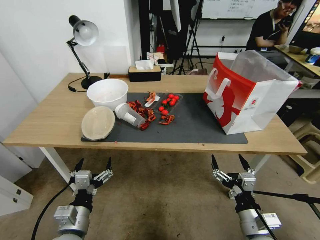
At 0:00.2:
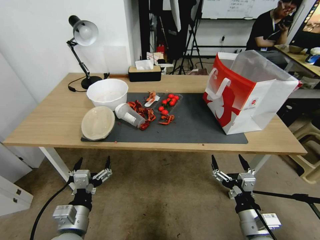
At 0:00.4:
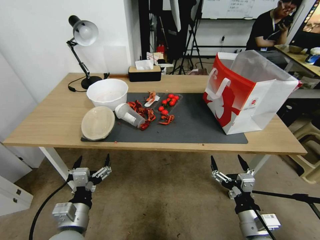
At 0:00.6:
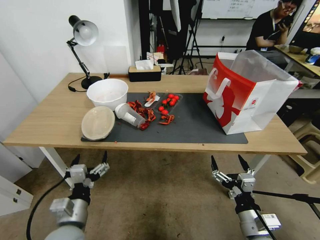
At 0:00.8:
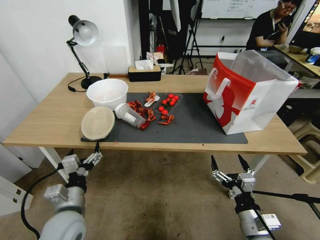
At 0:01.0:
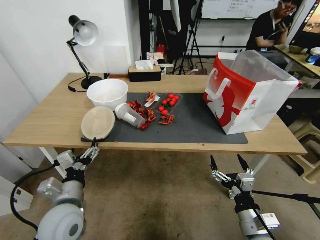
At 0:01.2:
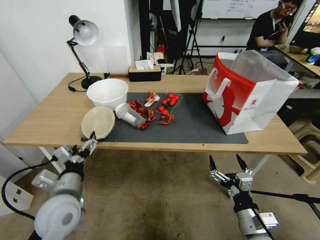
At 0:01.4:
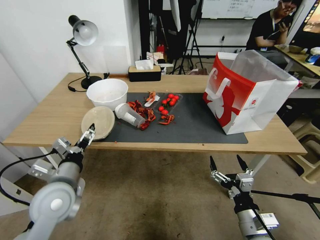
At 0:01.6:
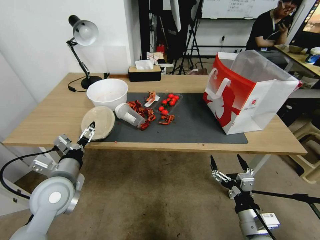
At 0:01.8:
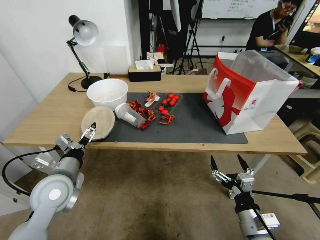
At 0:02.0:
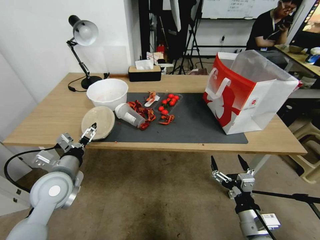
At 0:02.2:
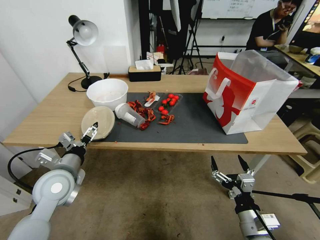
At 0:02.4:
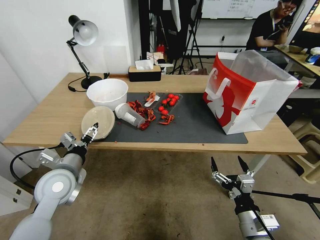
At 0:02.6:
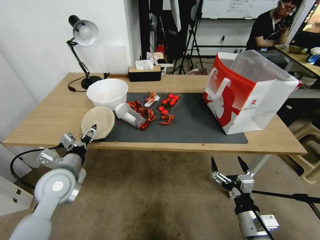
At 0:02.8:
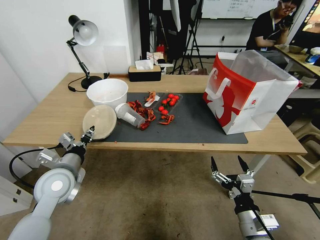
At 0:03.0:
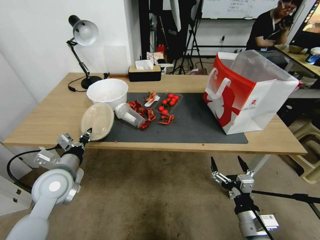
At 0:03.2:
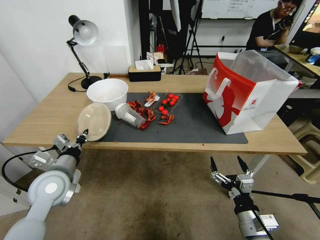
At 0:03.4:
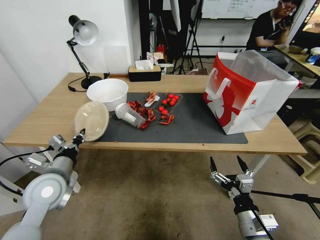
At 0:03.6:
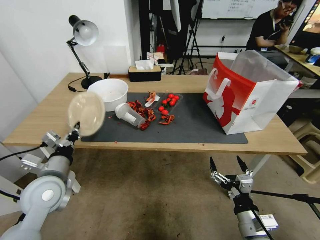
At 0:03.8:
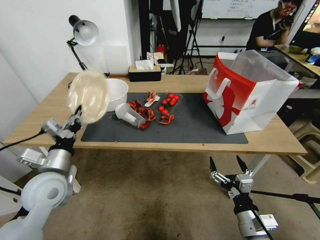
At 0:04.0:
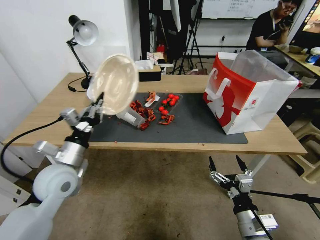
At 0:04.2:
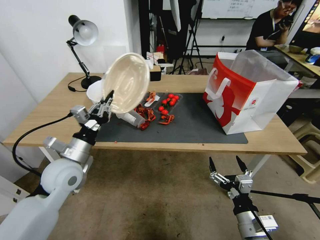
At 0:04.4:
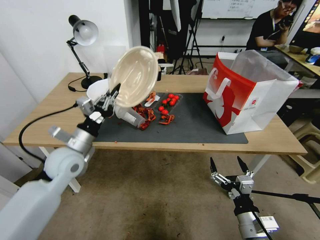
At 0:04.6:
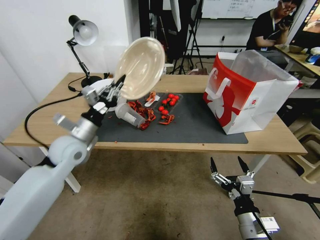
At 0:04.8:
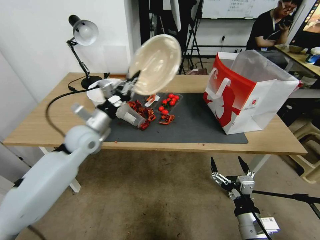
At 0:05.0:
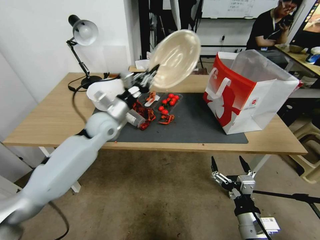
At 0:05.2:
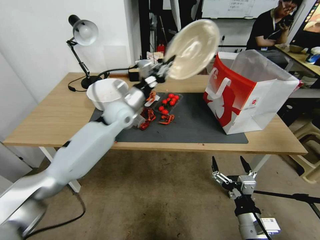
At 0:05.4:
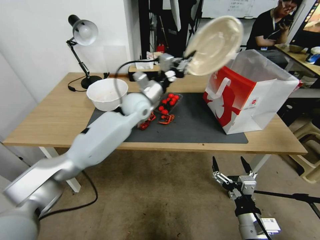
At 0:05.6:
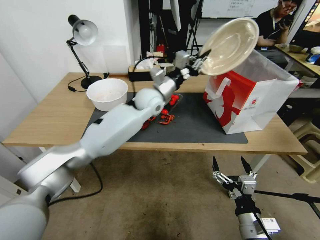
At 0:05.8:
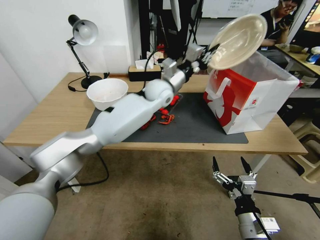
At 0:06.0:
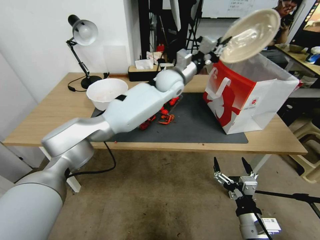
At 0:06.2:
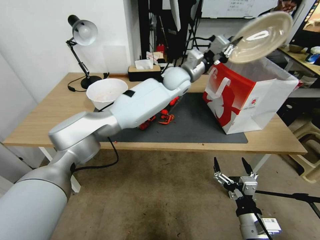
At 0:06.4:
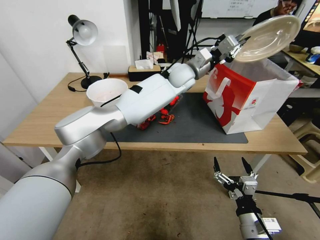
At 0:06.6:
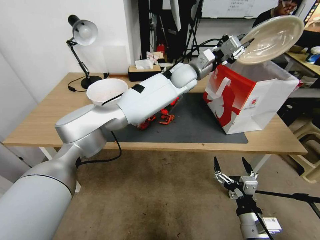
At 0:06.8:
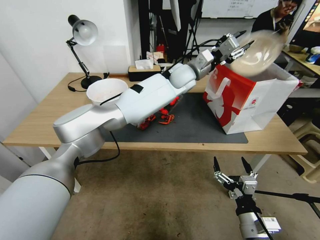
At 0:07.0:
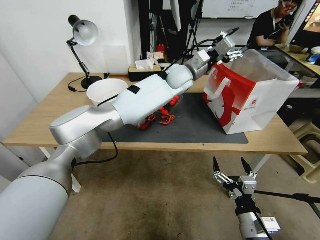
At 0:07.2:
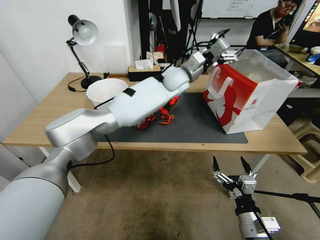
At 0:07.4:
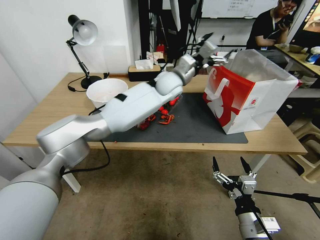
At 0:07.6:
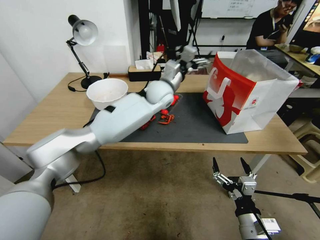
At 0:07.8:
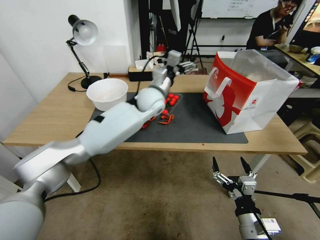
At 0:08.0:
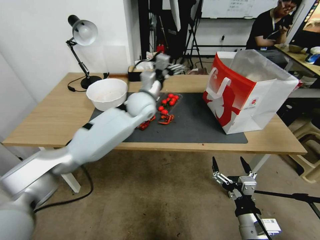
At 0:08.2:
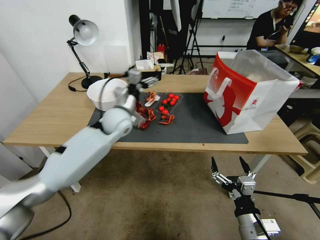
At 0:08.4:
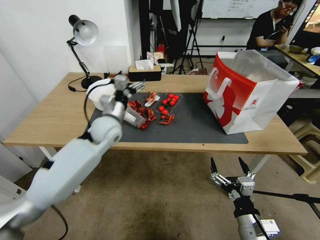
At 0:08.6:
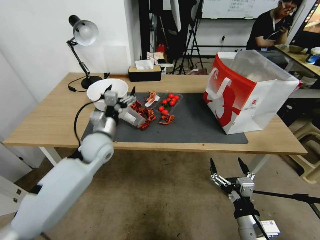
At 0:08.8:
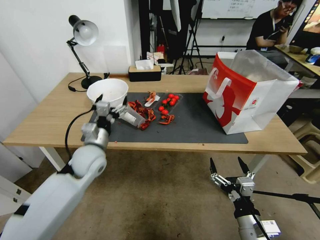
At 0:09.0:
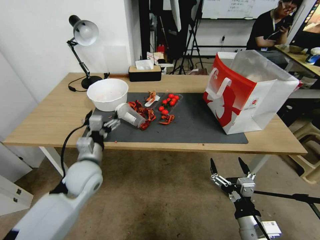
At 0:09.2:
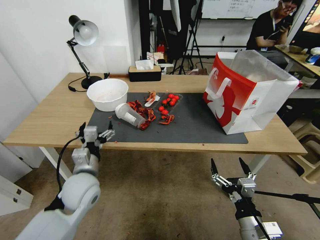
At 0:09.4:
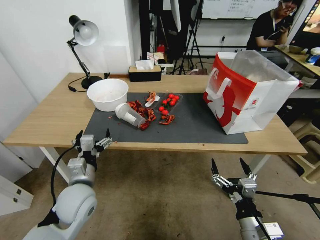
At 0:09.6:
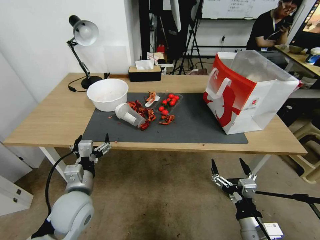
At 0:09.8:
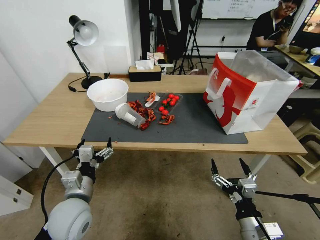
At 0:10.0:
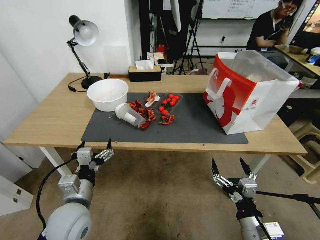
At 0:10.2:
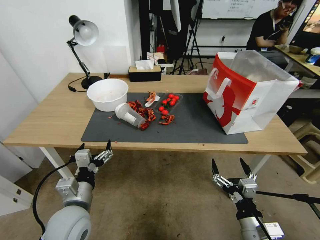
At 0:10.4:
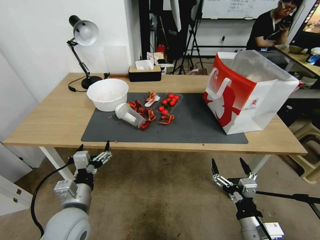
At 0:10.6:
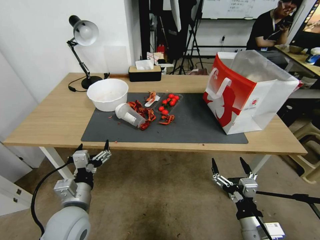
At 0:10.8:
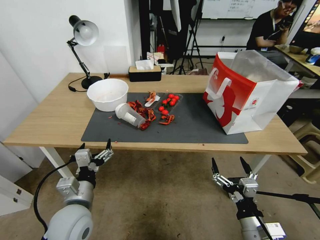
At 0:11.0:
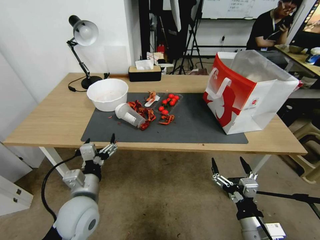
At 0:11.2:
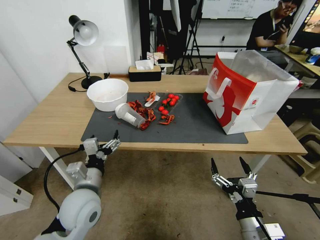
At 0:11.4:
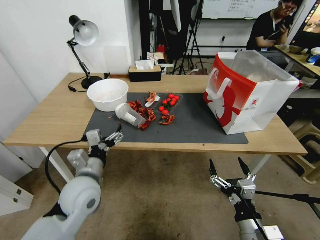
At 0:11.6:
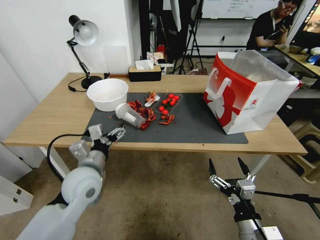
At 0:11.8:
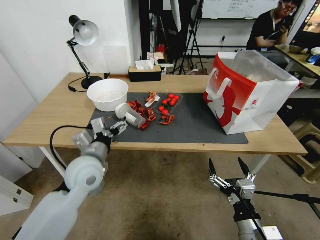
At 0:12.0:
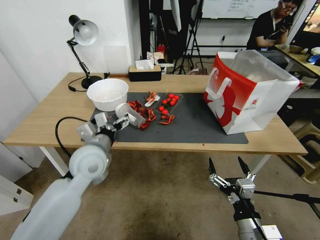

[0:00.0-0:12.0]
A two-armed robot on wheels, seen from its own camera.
0:00.0 to 0:01.6: The left gripper goes about 15 cm forward and upward.
0:01.6 to 0:03.0: The left gripper closes up.
0:03.0 to 0:04.4: The left gripper moves forward, roughly 5 cm.
0:04.4 to 0:06.0: The left gripper moves to the right and forward, approximately 40 cm.
0:06.0 to 0:07.6: The left gripper opens its fingers.
0:07.6 to 0:09.0: The left gripper moves backward, to the left and downward, approximately 35 cm.
0:09.0 to 0:10.4: The left gripper moves backward, approximately 15 cm.
0:10.4 to 0:12.0: The left gripper travels forward and upward by roughly 10 cm.

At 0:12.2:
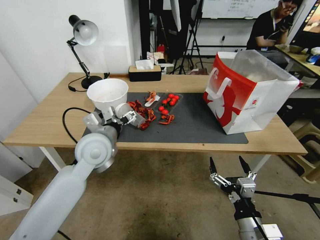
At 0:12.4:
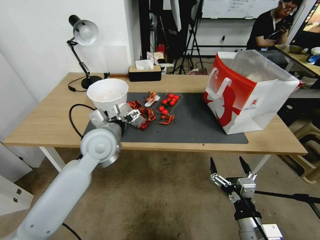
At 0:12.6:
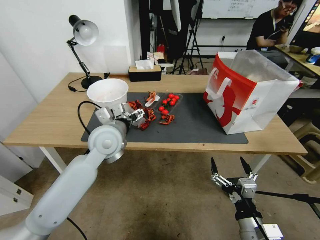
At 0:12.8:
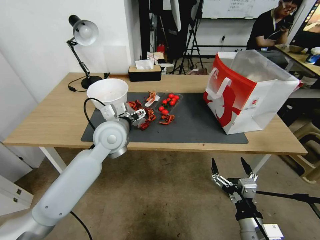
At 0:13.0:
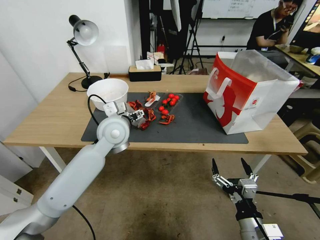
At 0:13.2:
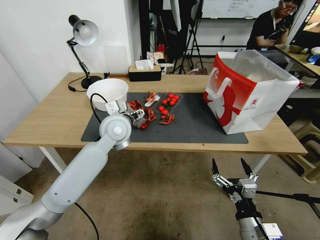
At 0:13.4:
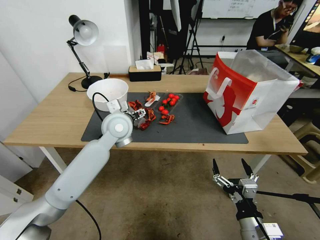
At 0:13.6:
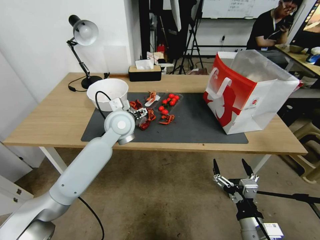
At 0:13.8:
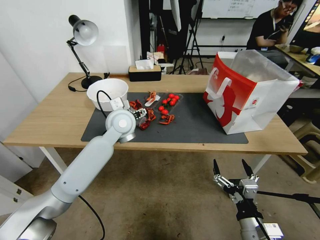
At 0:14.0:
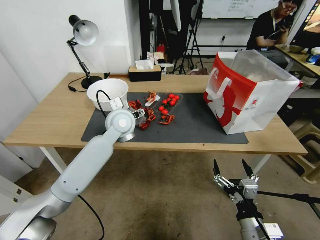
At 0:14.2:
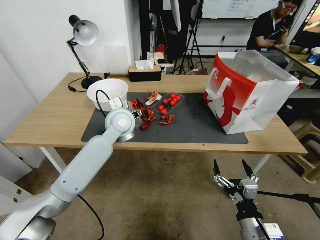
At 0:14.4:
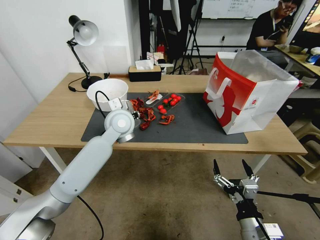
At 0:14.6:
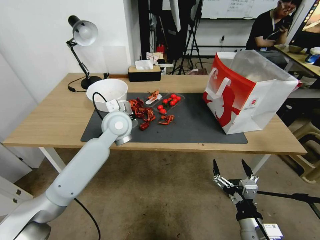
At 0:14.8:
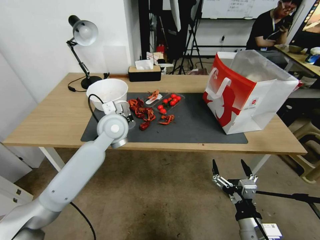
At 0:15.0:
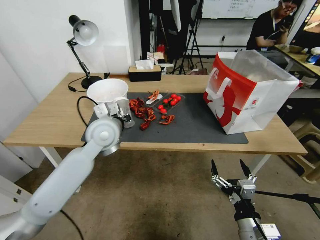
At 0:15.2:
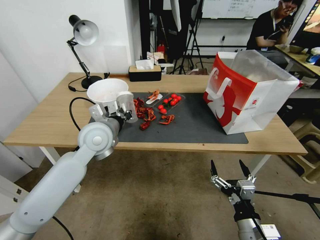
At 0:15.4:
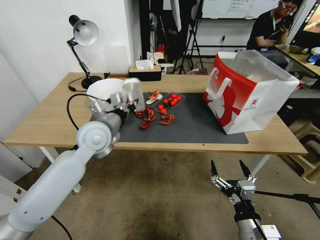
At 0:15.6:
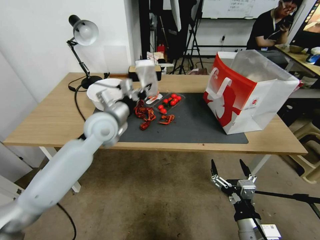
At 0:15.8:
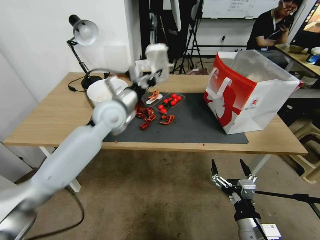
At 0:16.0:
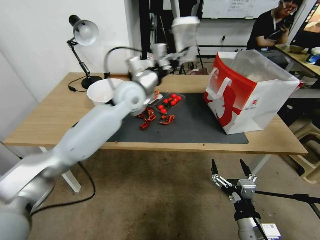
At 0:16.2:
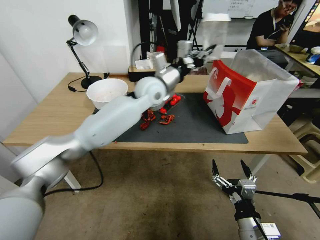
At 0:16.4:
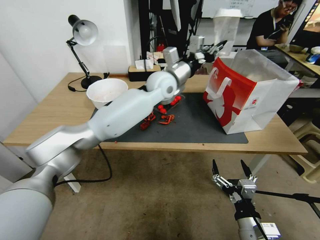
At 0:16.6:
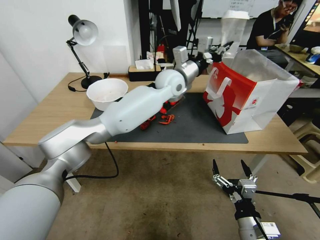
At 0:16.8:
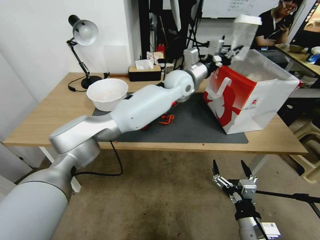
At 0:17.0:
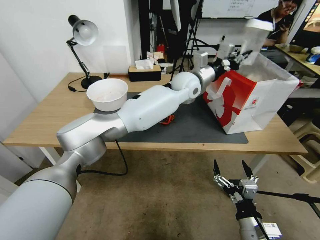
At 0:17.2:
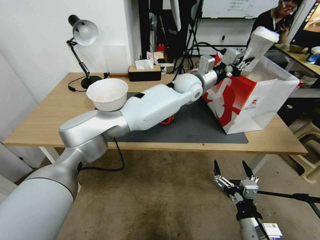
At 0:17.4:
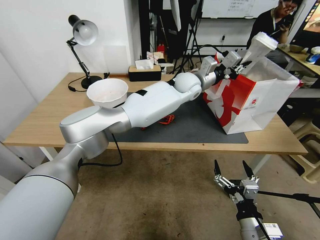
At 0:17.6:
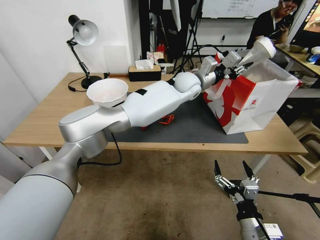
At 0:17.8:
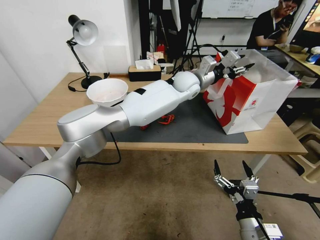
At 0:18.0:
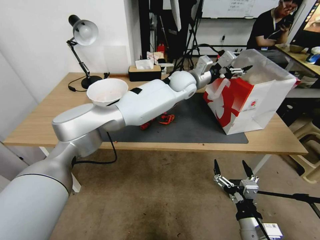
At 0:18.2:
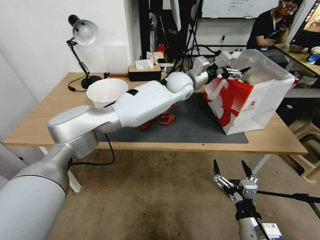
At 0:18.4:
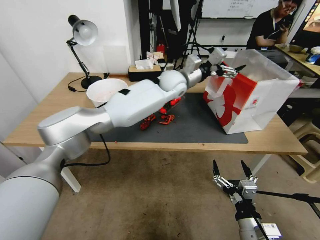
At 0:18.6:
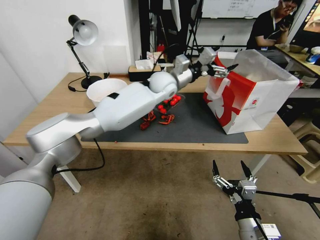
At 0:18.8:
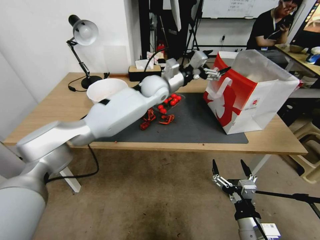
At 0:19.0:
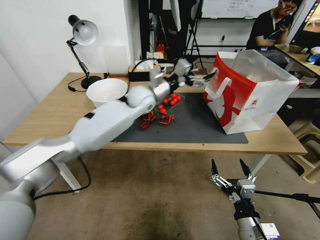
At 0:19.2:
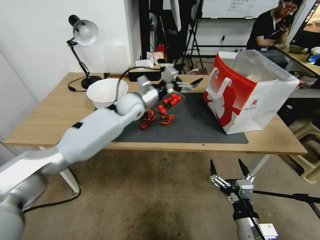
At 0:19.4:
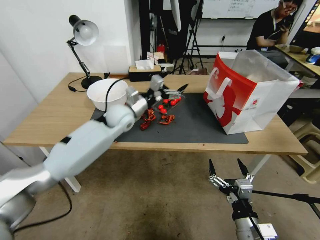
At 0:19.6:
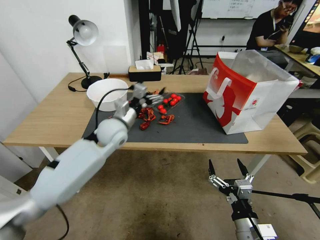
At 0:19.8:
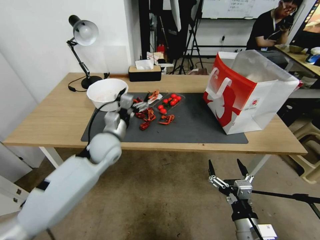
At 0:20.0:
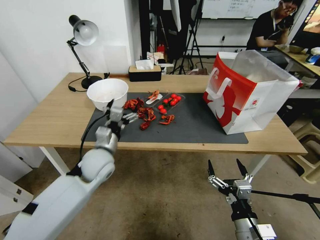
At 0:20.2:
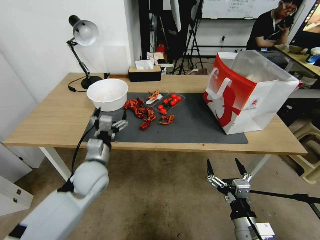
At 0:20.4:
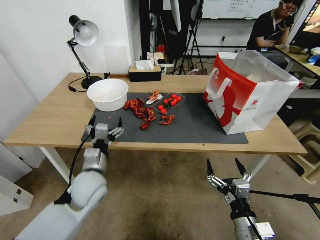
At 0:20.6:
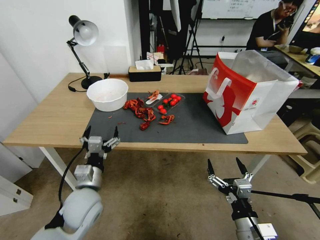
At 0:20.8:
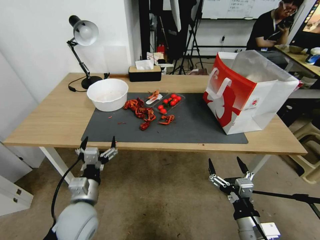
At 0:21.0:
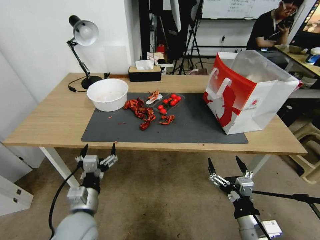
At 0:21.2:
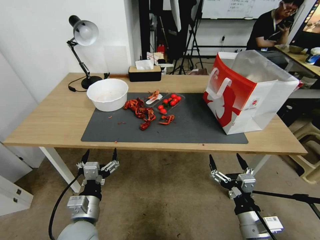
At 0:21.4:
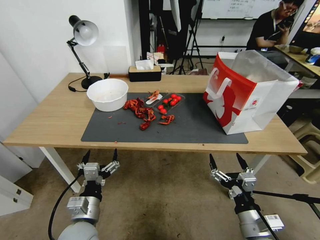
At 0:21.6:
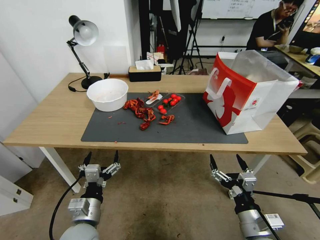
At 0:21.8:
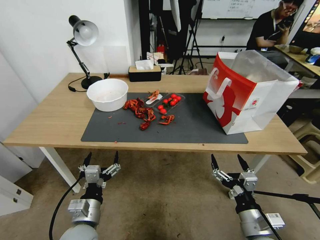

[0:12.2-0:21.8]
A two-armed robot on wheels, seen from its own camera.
0:12.2 to 0:13.8: The left gripper travels forward and to the right by approximately 15 cm.
0:13.8 to 0:15.4: The left gripper travels to the left and backward by some 10 cm, and closes its fingers.
0:15.4 to 0:17.0: The left gripper heads to the right and forward, covering some 35 cm.
0:17.0 to 0:18.6: The left gripper goes about 10 cm to the left, and opens its fingers.
0:18.6 to 0:20.2: The left gripper is displaced backward, to the left and downward by some 35 cm.
0:20.2 to 0:21.8: The left gripper goes some 15 cm backward.
